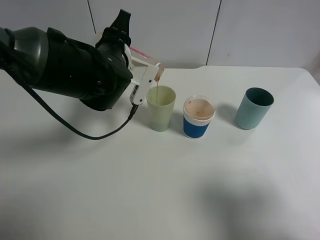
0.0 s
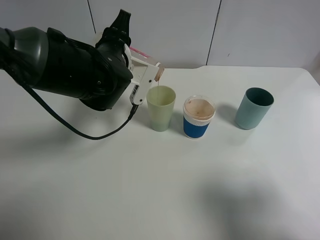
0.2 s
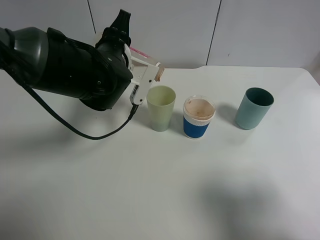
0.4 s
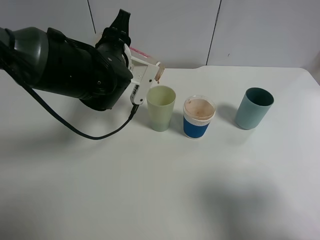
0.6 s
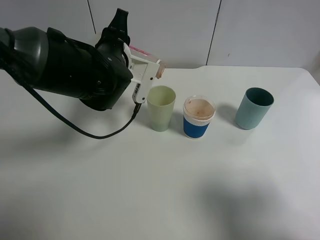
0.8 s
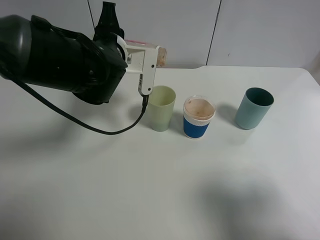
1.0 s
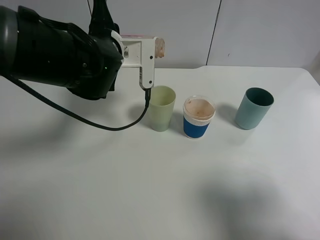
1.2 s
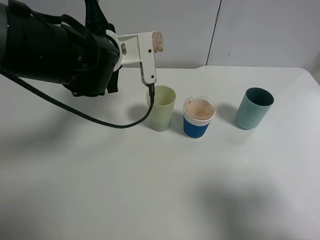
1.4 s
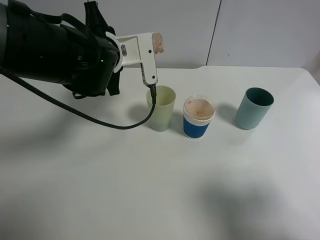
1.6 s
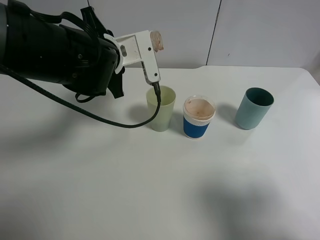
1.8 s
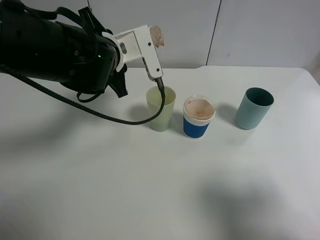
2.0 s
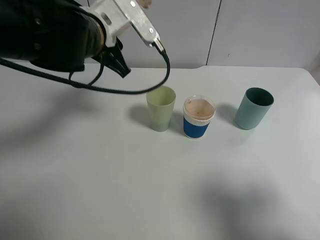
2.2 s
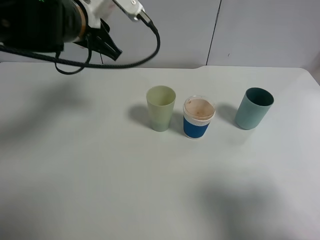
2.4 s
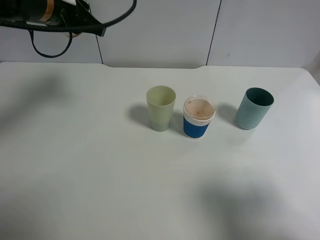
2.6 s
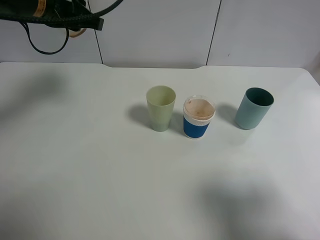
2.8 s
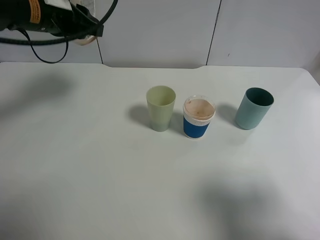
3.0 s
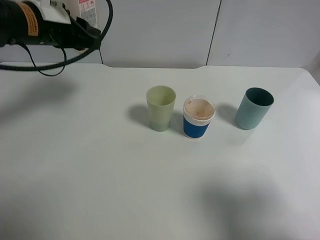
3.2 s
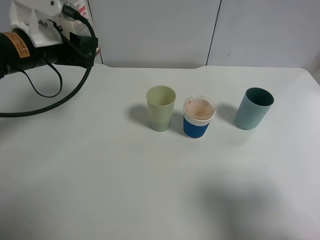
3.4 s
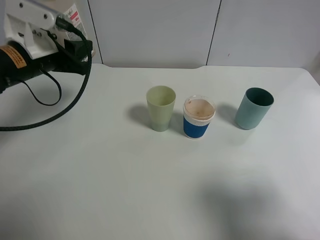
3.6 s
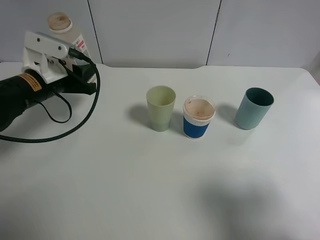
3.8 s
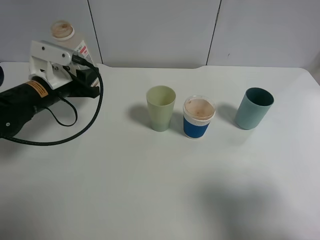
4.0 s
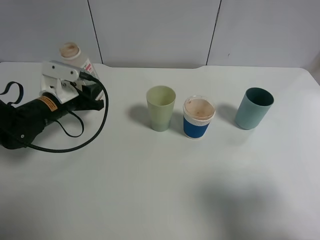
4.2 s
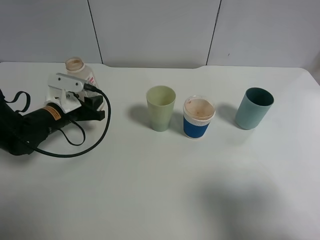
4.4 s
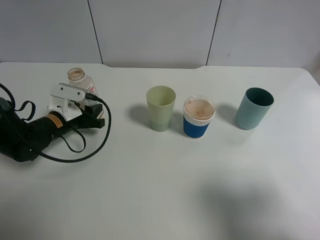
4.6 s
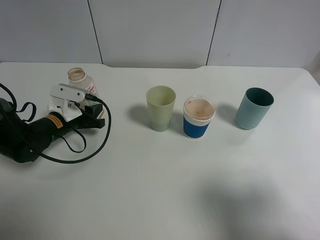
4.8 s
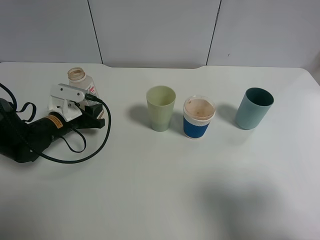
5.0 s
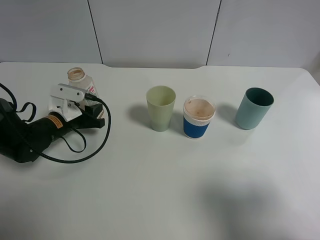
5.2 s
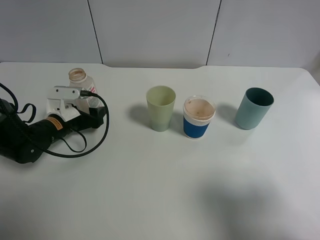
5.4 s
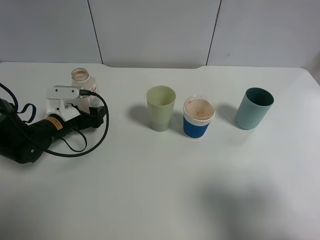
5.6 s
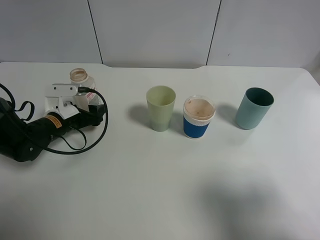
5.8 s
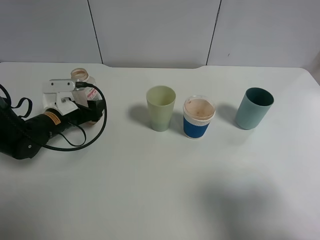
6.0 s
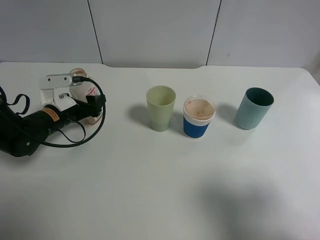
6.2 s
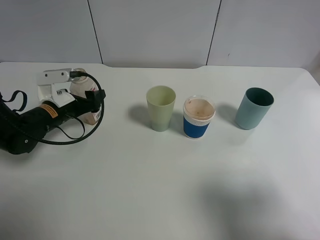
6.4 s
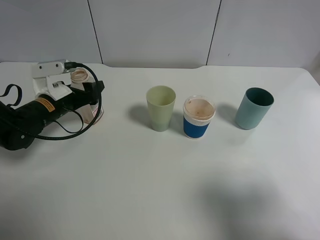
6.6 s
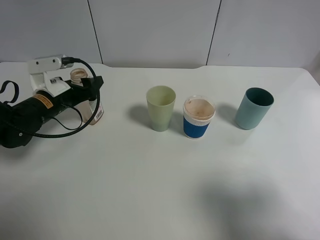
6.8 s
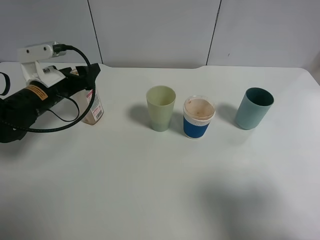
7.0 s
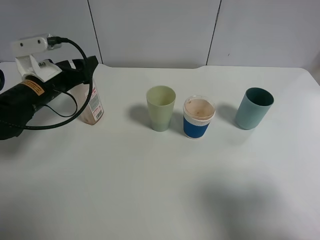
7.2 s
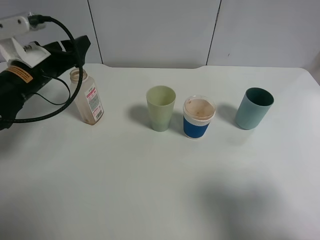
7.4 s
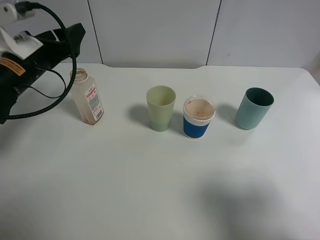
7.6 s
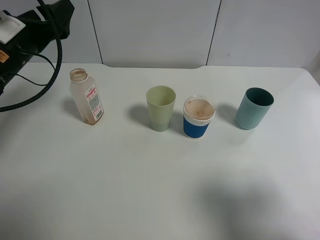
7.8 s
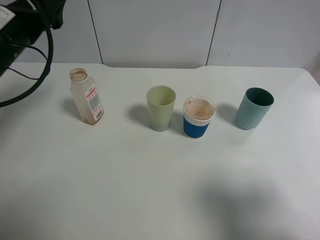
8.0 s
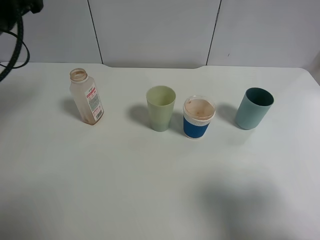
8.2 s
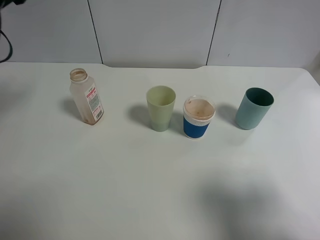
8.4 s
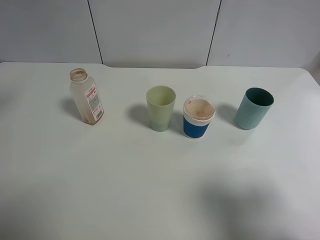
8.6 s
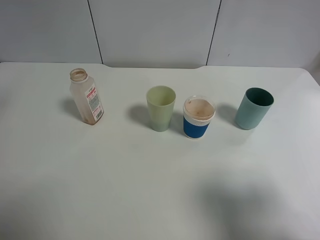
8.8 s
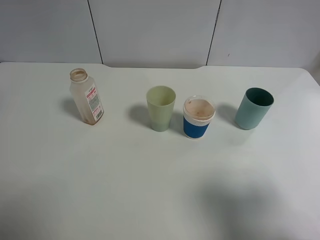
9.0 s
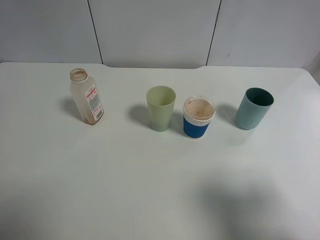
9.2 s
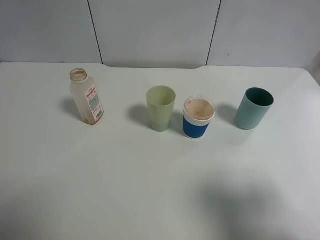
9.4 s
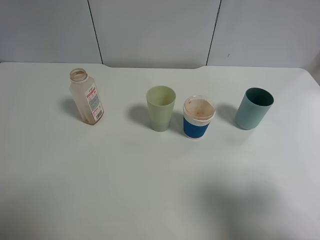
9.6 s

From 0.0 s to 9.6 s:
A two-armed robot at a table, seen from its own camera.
Task of the whole recording: use a gripper to hold the bottle of the drink and pour it into a random cup.
Step, from 0.6 s to 6.2 s: Place the cranberry juice bottle on the table with the left gripper.
From 1.6 s to 3.2 s: The left gripper heads to the left, covering some 10 cm.
From 3.2 s to 4.8 s: The left gripper is displaced downward by roughly 20 cm.
From 4.8 s to 6.4 s: The left gripper opens up.
From 6.4 s to 8.0 s: The left gripper travels upward by roughly 15 cm.
From 8.0 s to 9.6 s: The left gripper travels backward and upward by about 20 cm.
